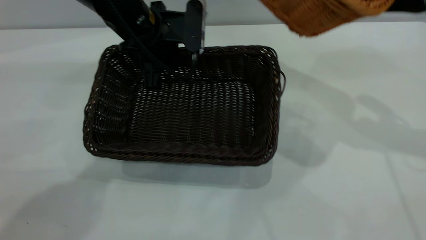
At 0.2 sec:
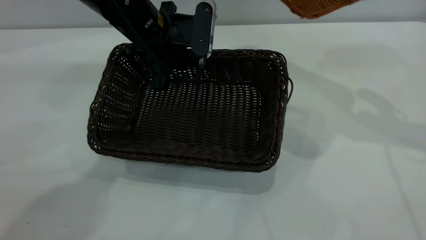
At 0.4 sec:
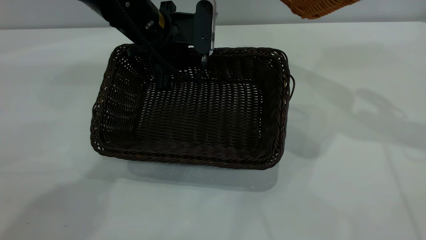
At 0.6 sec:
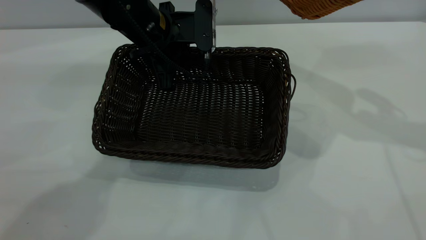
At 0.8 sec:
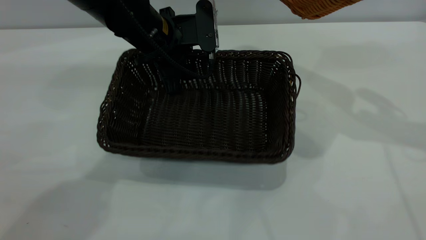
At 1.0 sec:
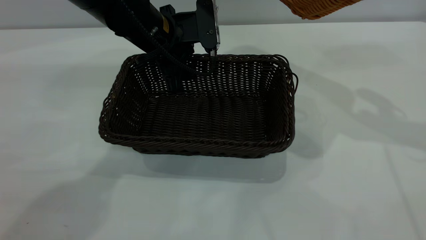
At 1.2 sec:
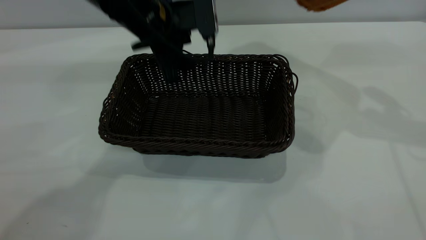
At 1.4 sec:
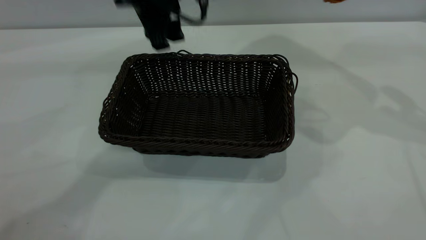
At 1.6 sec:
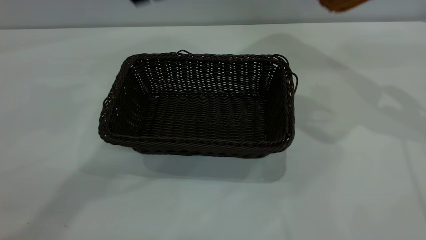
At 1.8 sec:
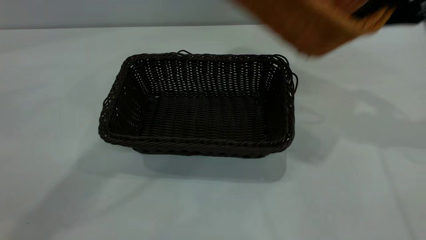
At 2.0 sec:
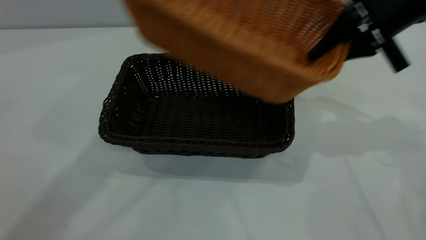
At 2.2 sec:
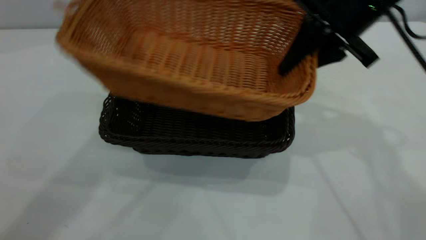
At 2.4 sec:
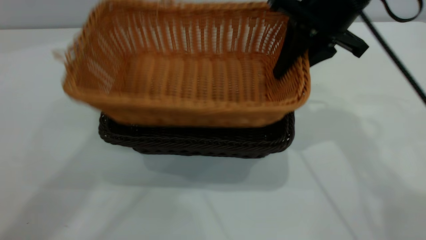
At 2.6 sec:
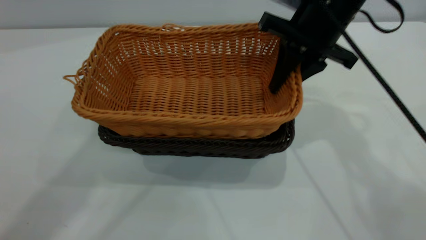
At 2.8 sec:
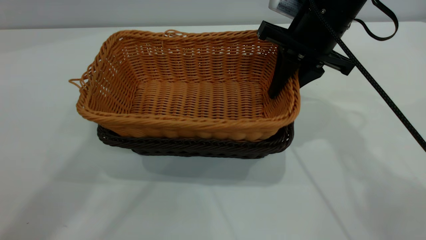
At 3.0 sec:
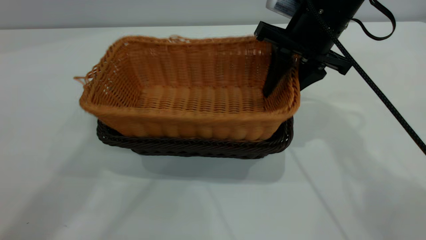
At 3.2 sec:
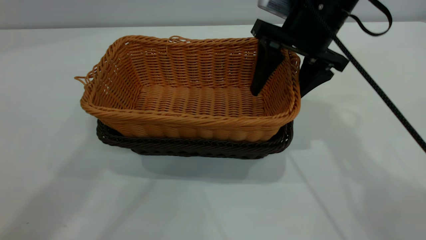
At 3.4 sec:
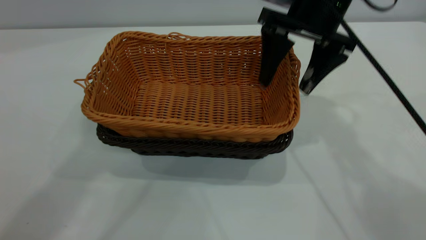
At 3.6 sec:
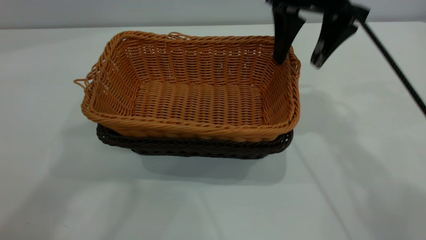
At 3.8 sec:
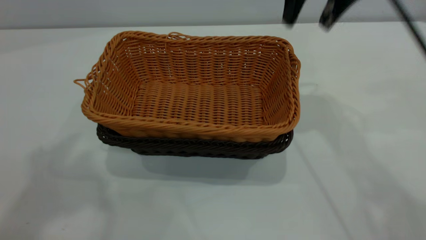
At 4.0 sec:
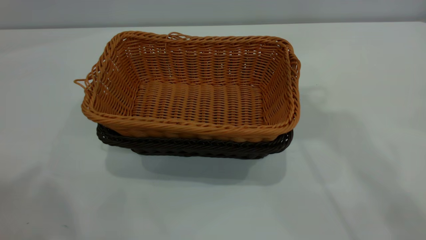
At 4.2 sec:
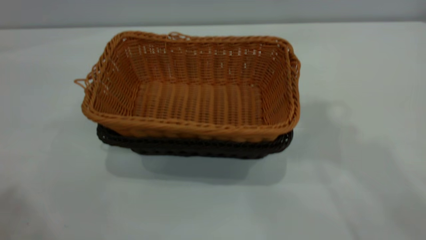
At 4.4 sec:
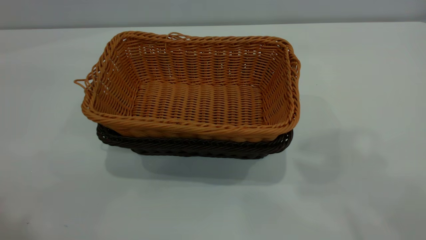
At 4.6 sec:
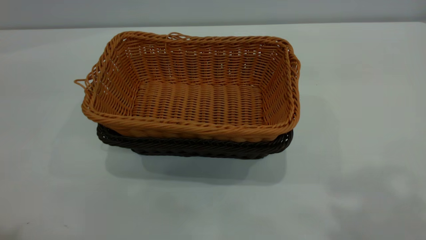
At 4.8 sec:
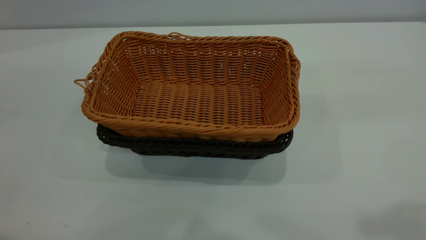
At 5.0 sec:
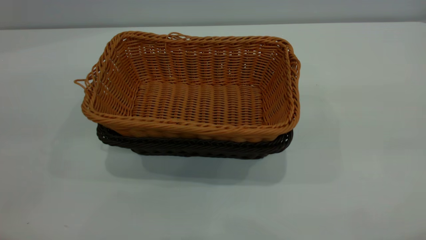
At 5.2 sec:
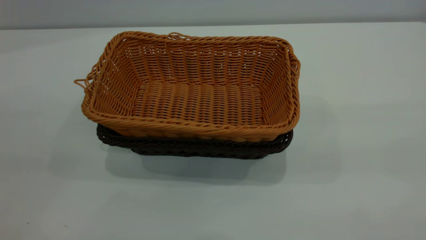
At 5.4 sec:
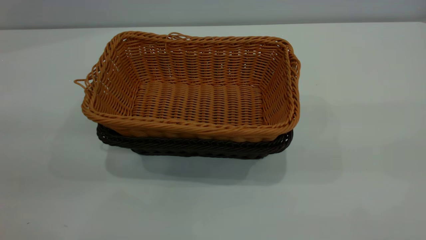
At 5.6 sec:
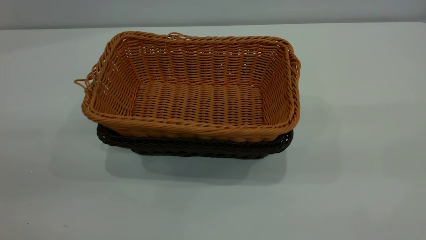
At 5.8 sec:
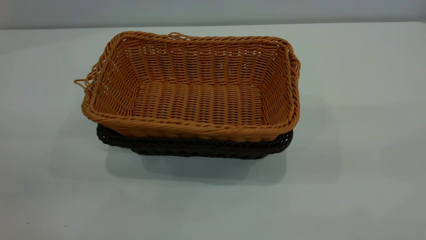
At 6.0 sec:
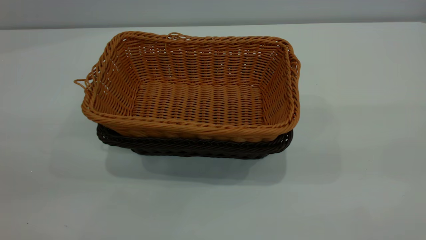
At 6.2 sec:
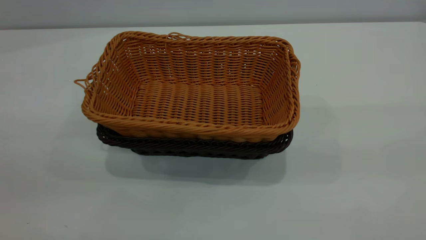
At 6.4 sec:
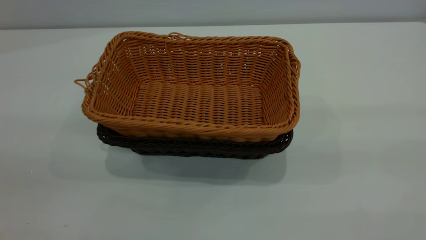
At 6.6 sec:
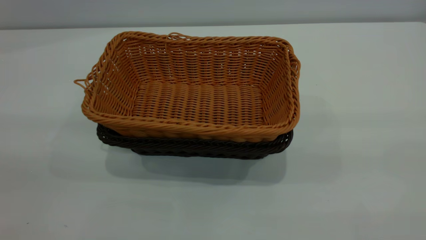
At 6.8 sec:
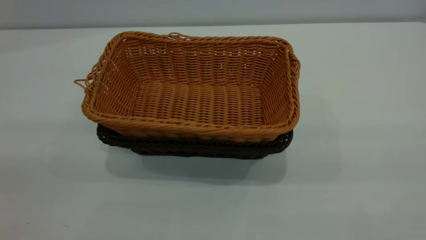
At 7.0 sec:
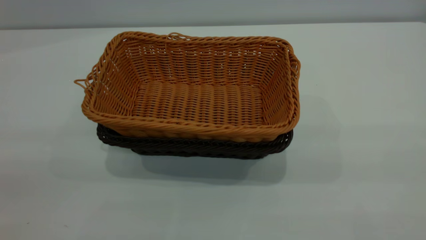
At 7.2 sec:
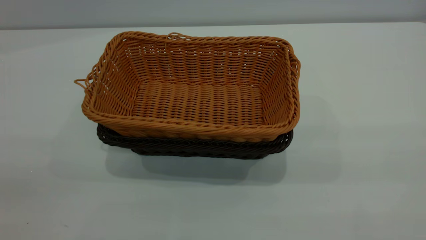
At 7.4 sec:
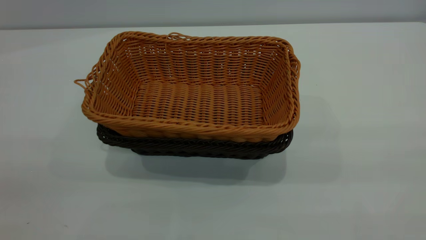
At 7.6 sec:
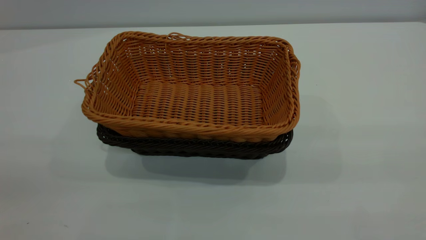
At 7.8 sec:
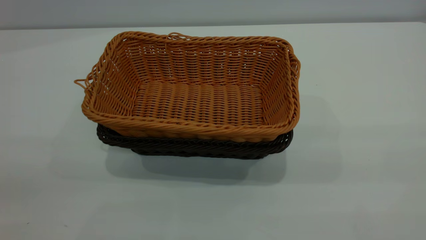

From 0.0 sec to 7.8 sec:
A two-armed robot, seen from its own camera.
Task of the whole recording: the left gripper grasp the black basket and place it in the center of the table, the right gripper grasp the brown basket and place it inside the black one.
Step, from 0.0 sec to 1.2 sec: Move the dark basket to the center of view.
Step, from 1.4 sec to 3.6 sec: Place the light basket on the dark basket.
From 0.0 sec to 1.6 sec: The left gripper travels upward by approximately 20 cm, and opens up.
From 1.6 sec to 3.2 sec: The right gripper shifts about 20 cm to the left, and opens; the left gripper heads upward and backward, covering roughly 20 cm.
From 3.2 sec to 4.6 sec: The right gripper moves upward and backward, some 35 cm, while the left gripper heads backward and to the left, covering some 20 cm.
